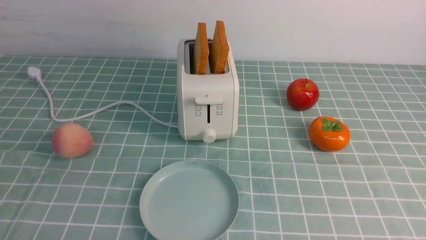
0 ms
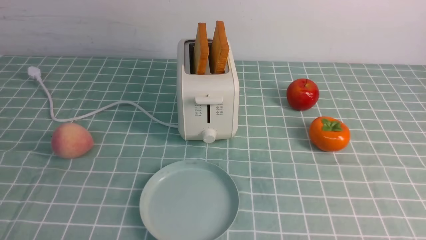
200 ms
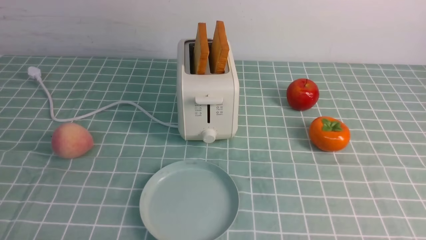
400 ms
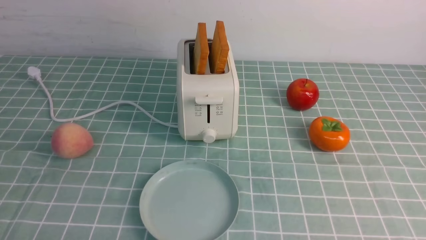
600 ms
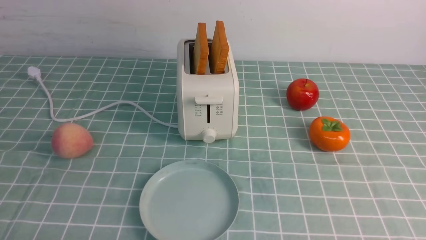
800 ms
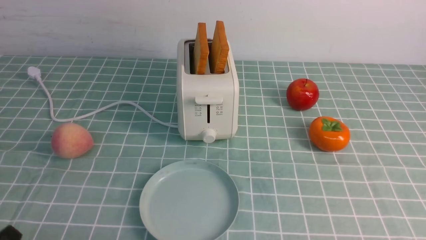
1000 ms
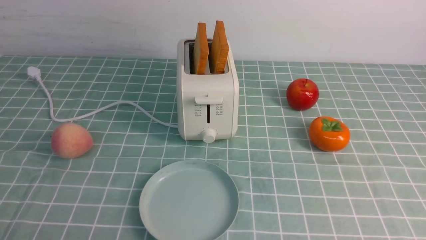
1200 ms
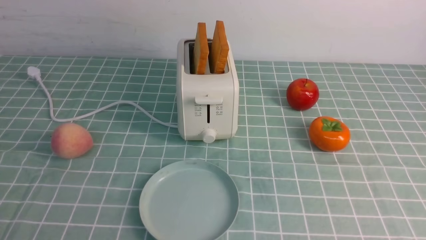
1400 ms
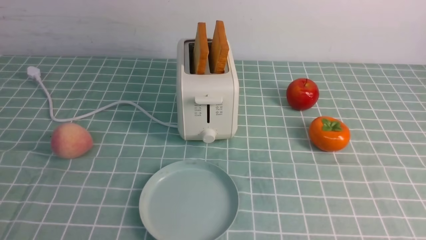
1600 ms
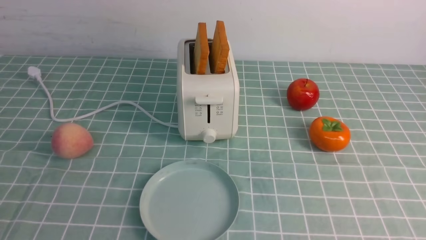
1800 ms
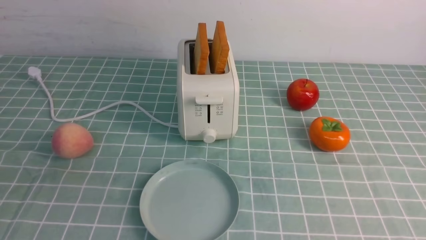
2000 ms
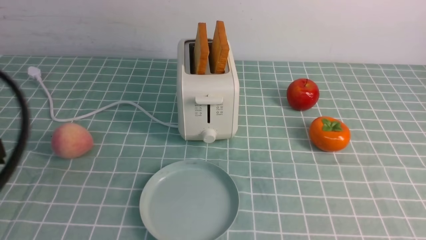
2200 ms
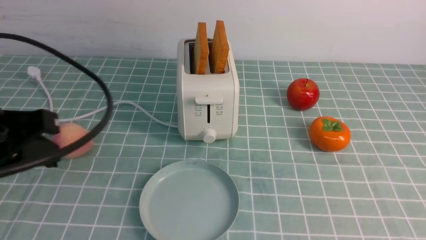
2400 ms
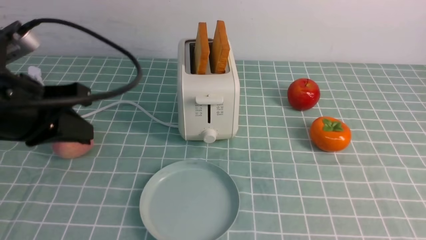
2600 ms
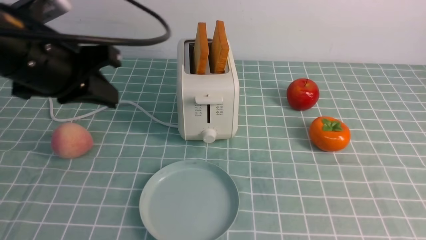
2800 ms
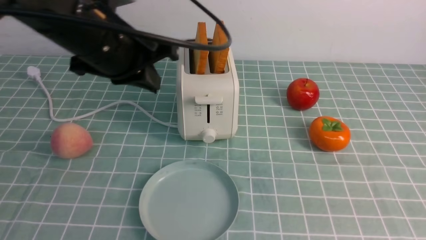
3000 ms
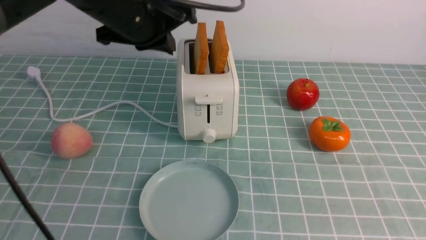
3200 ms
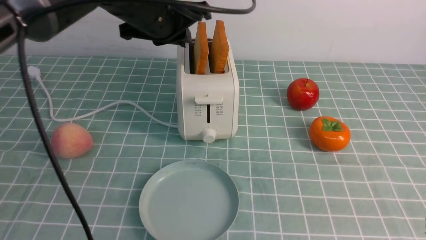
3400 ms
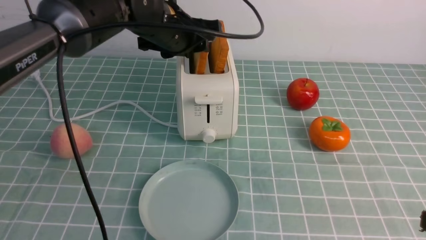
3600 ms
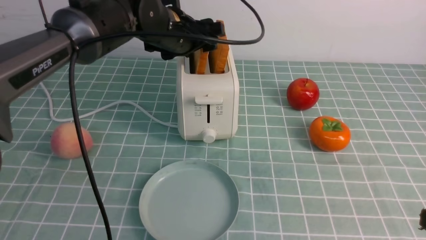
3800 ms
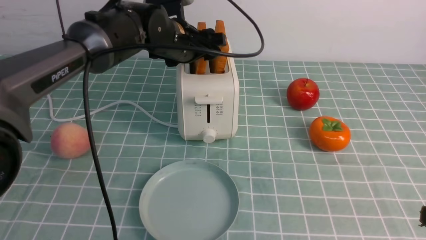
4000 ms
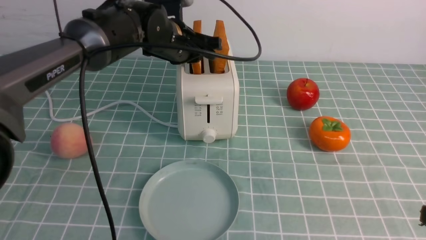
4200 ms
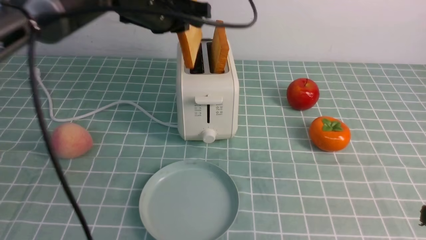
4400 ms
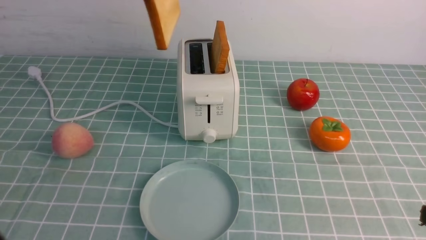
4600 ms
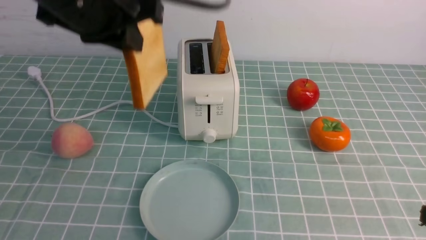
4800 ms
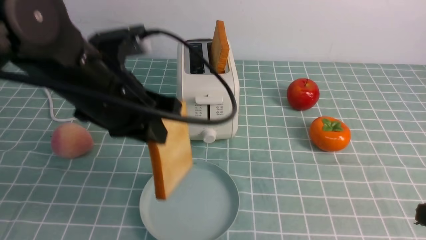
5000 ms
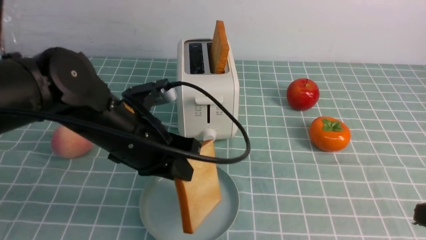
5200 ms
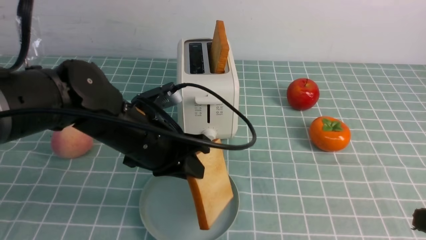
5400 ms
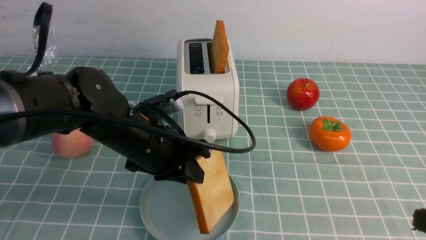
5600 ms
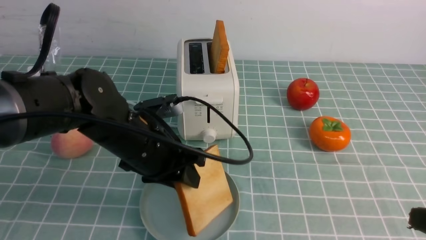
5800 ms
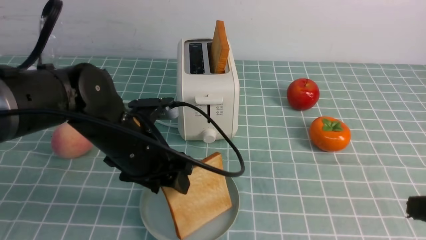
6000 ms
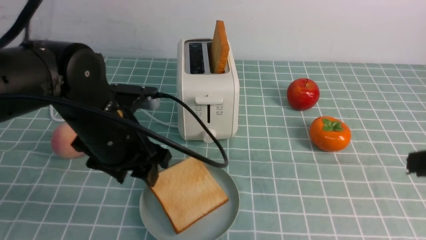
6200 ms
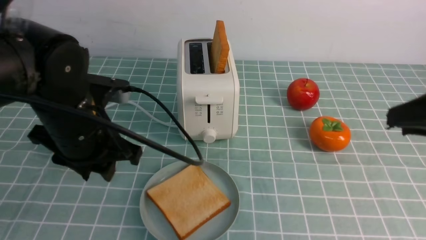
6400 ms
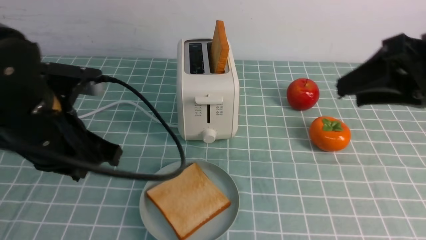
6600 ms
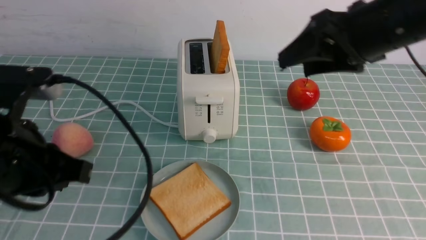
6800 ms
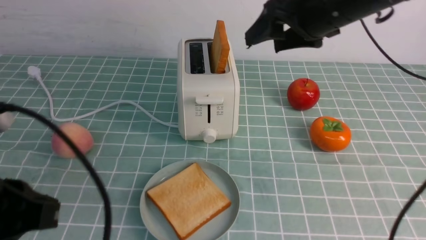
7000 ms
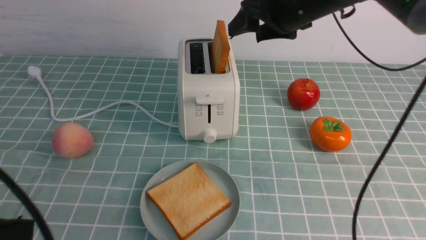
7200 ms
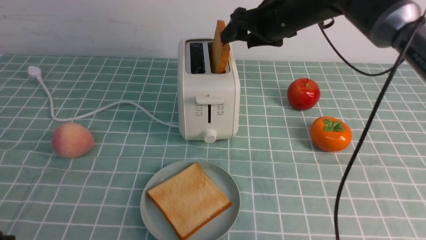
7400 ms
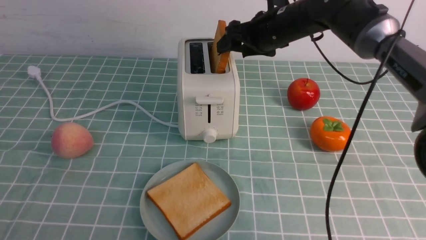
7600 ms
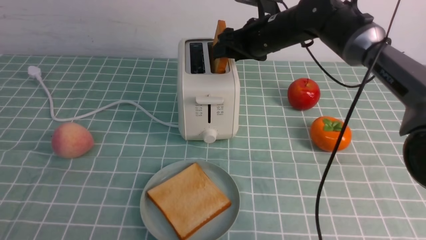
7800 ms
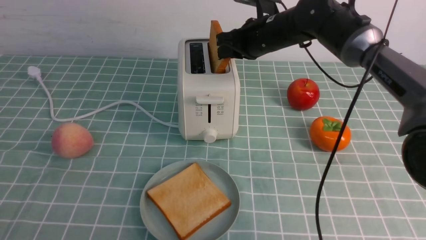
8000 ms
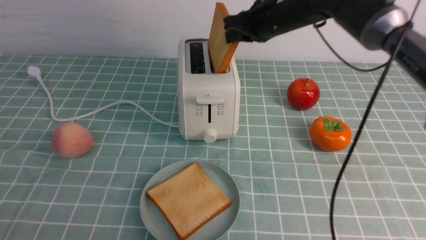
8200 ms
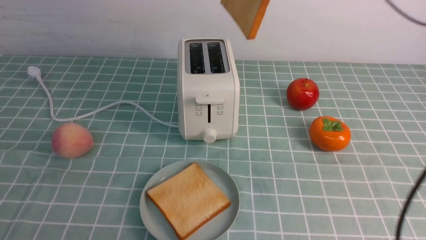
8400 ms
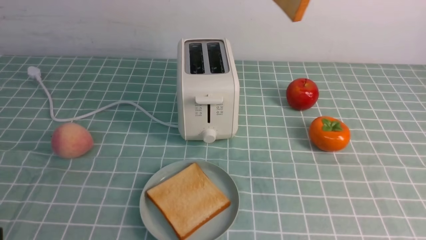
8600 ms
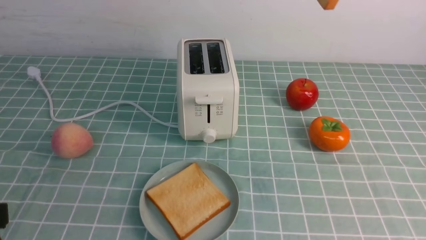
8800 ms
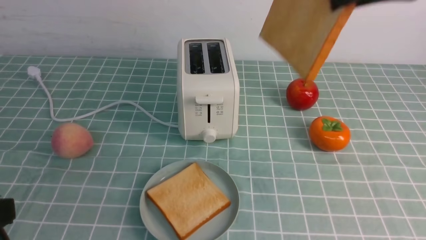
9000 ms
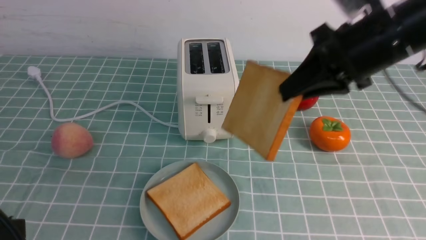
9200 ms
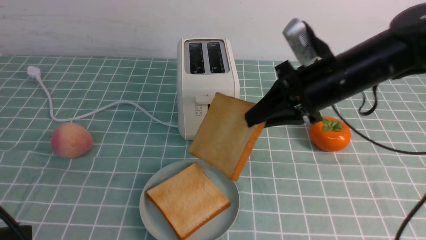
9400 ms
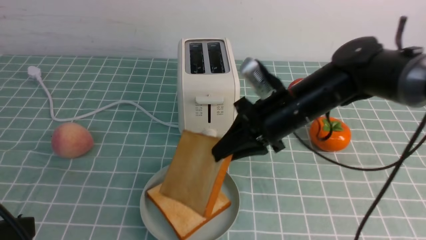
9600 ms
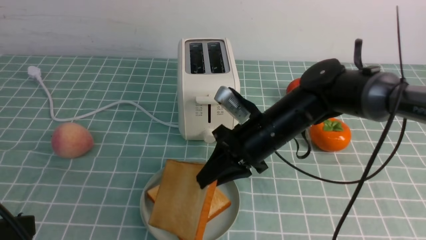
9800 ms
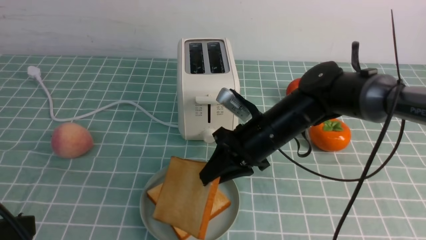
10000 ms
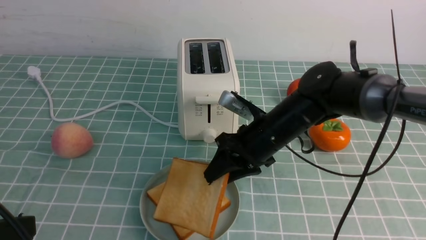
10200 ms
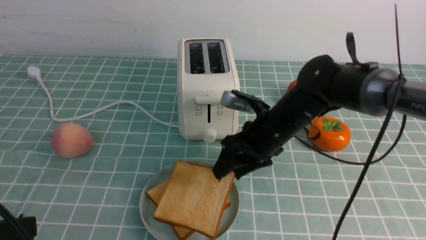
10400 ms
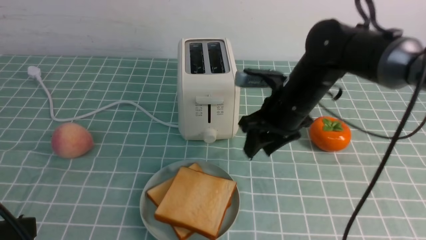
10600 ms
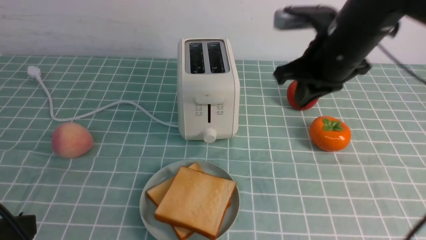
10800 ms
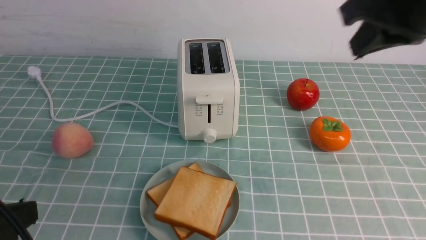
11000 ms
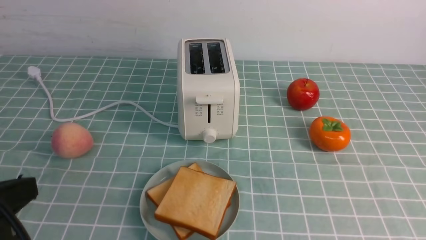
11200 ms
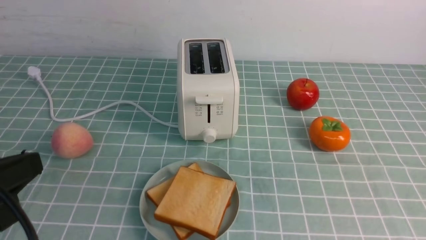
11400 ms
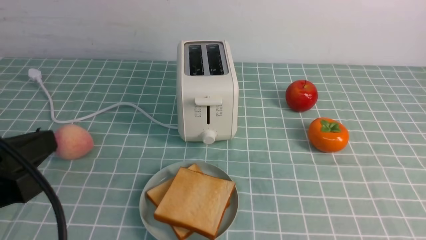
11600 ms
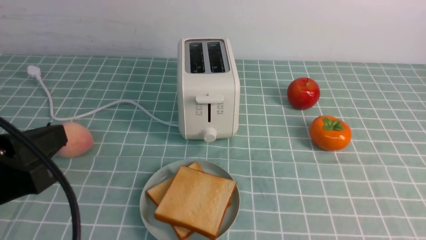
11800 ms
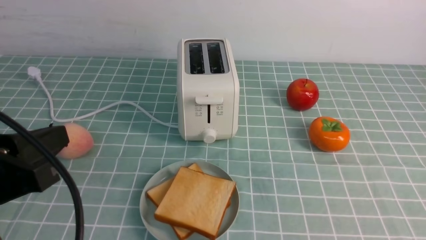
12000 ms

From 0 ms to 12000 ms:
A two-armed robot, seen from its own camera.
Task of the whole recording: take toasted bread from bread machine on blue coffee table place on plate.
Step, from 0 ms to 4400 ms: use the left arm to take out a slice of bread.
Step, from 4600 ms to 6600 ms: use the left arm to put a slice of bread into the empty plate.
Step, from 6800 ms to 8600 ms: use the right arm to take out a slice of bread.
Step, from 8800 ms to 10600 ms: use the right arm to put a slice of bread into the plate.
From 1600 ms to 3000 ms: The right gripper goes some 15 cm upward, and closes up; the left gripper shifts about 35 cm forward, upward and to the right.
From 3000 ms to 4400 ms: The left gripper travels forward by some 5 cm, and opens, then closes once more.
From 4400 ms to 6000 ms: The left gripper is displaced downward and backward by about 20 cm, and opens.
From 6000 ms to 7600 ms: The right gripper is displaced forward and to the left by roughly 40 cm, and opens its fingers. Meanwhile the left gripper is displaced backward and to the left by about 25 cm, and closes.
From 7600 ms to 9000 ms: The right gripper is displaced backward, upward and to the right by roughly 25 cm, and closes its fingers.
From 9000 ms to 10400 ms: The right gripper goes approximately 25 cm downward and to the left, and opens its fingers.
From 10400 ms to 12000 ms: The left gripper changes place by approximately 5 cm, while the right gripper goes roughly 40 cm backward and to the right, and closes.

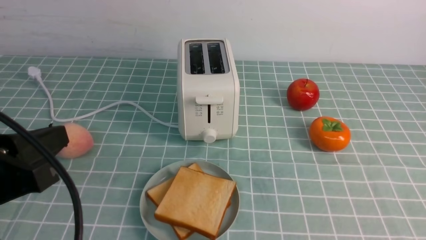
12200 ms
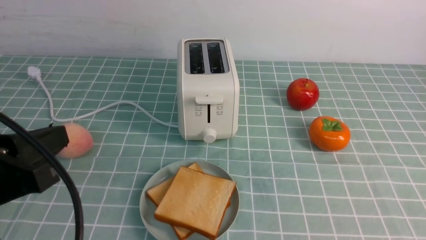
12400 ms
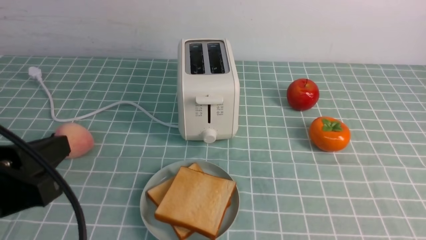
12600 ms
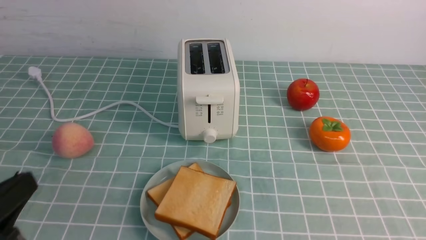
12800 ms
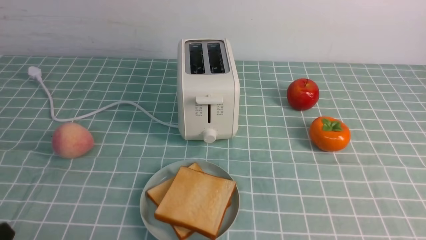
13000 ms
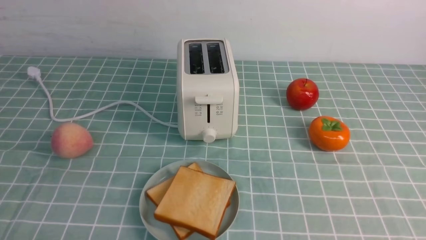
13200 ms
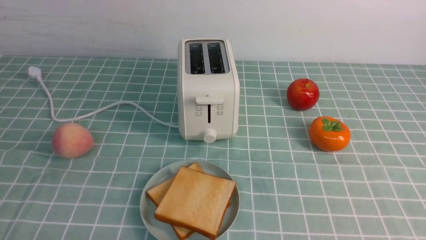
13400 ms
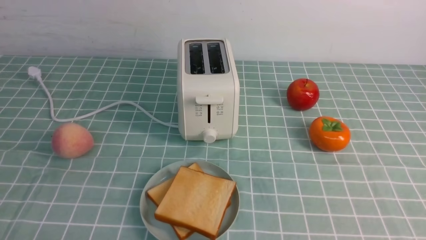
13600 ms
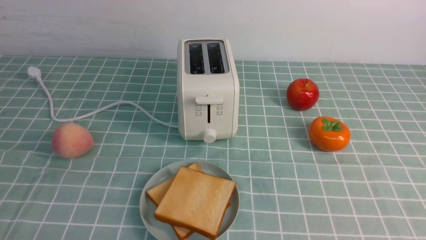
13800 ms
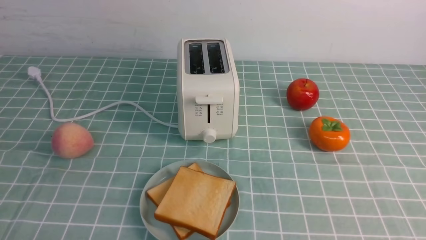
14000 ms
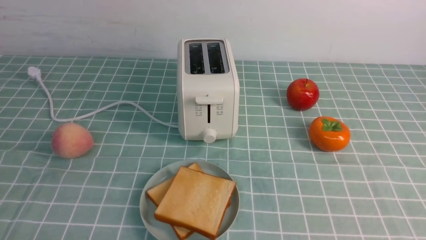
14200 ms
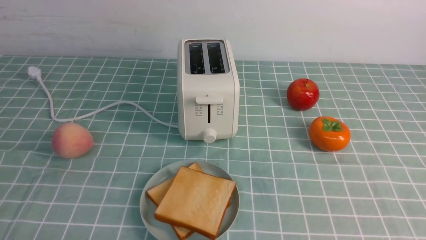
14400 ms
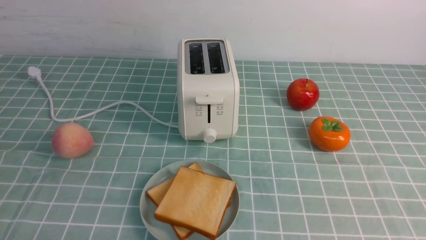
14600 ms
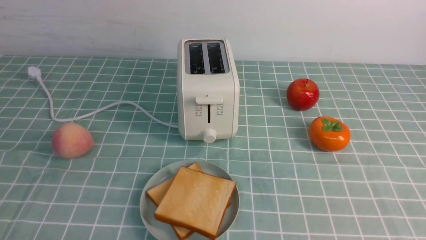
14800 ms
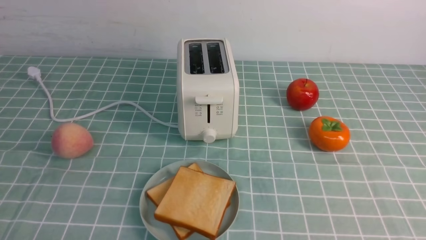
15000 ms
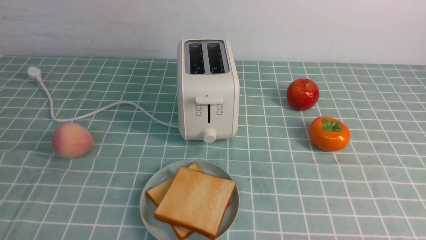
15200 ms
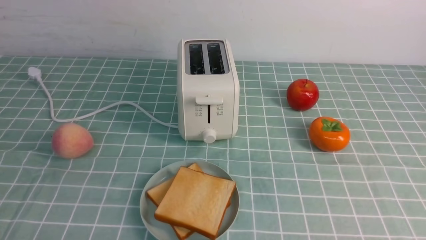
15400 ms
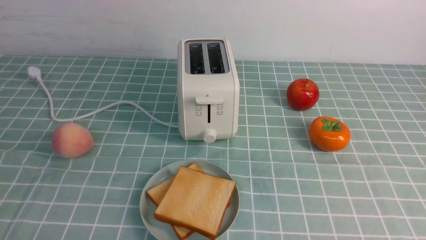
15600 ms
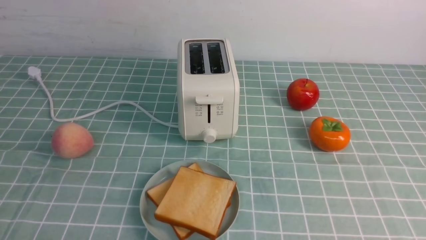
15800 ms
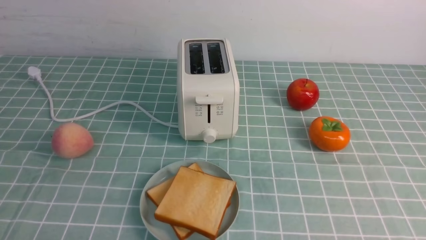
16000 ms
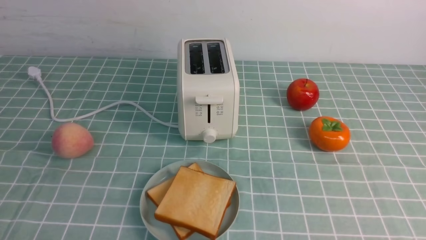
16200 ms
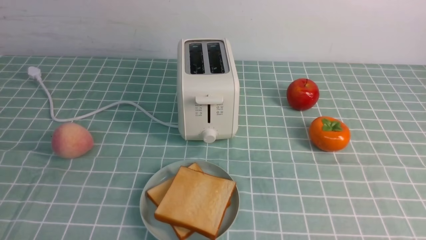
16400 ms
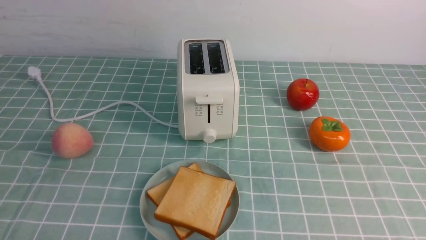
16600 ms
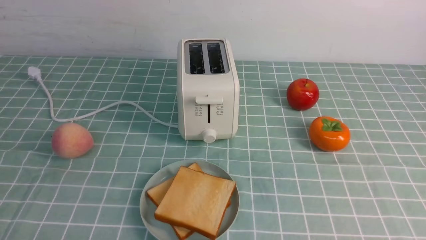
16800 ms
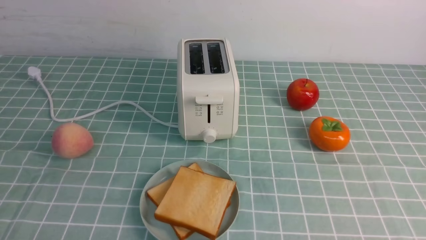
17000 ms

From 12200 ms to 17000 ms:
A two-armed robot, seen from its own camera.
Task of the whole recording: take toasted bread from bread machine on blue coffee table place on plate.
From 12200 ms to 13800 ms: The left gripper travels downward and backward by some 15 cm.
From 15400 ms to 17000 ms: Neither gripper changes place.
